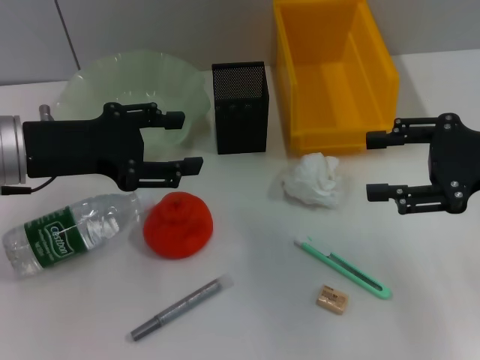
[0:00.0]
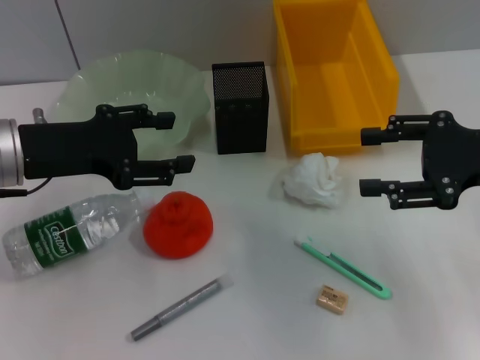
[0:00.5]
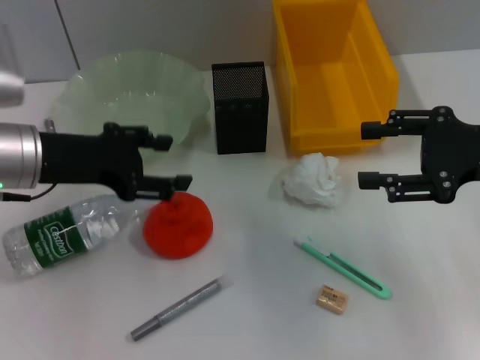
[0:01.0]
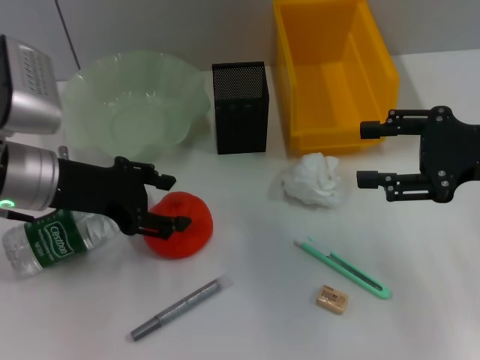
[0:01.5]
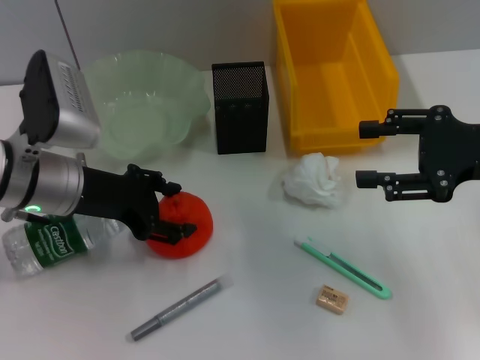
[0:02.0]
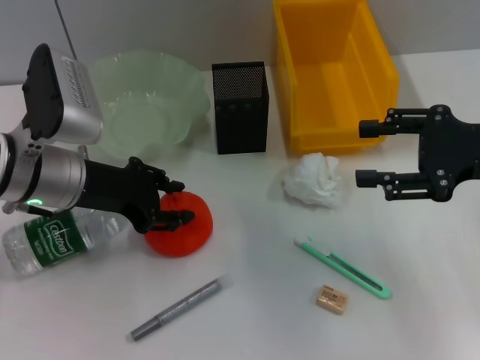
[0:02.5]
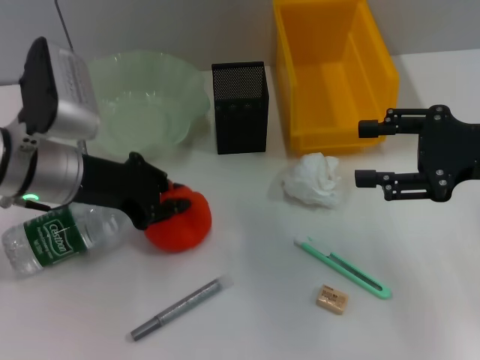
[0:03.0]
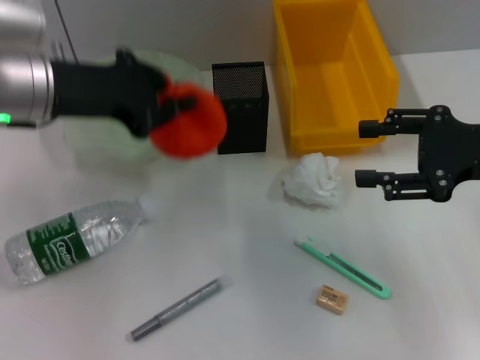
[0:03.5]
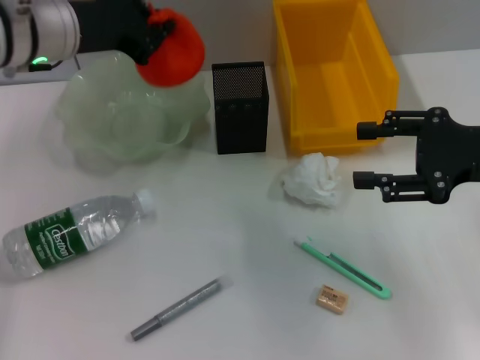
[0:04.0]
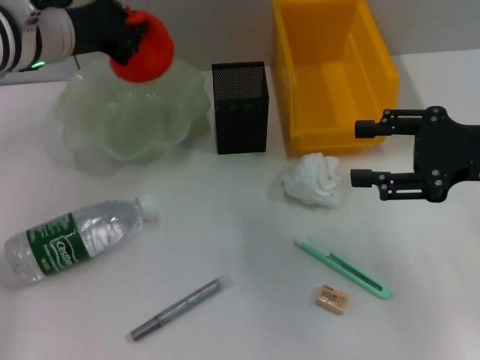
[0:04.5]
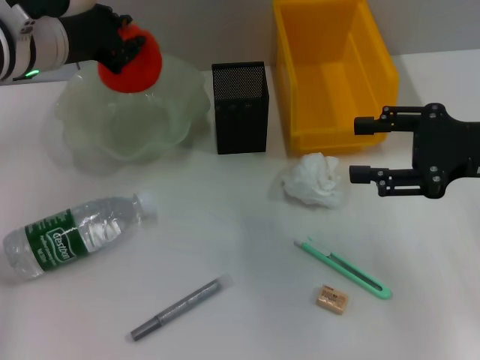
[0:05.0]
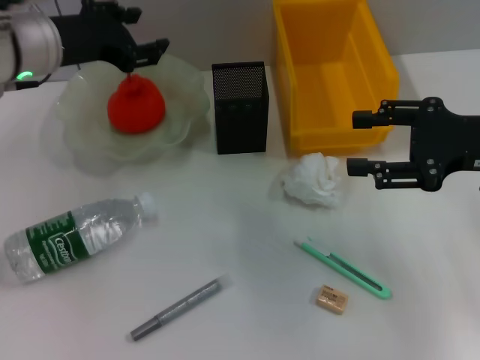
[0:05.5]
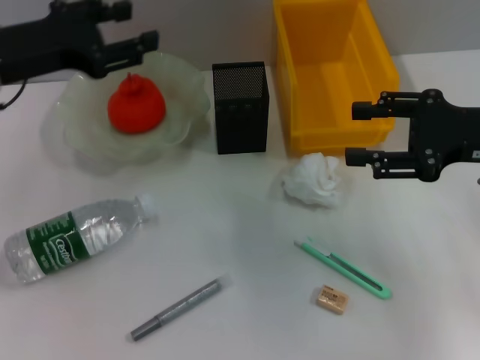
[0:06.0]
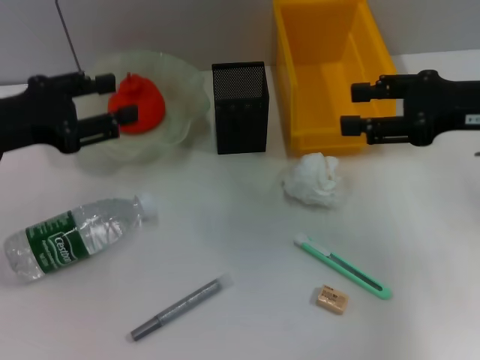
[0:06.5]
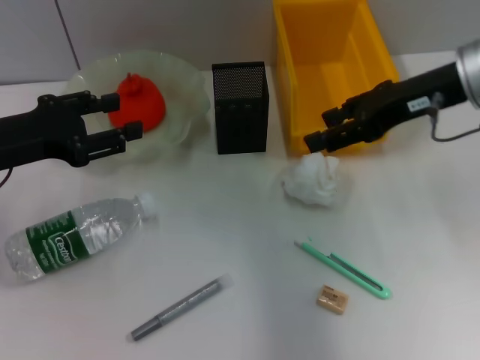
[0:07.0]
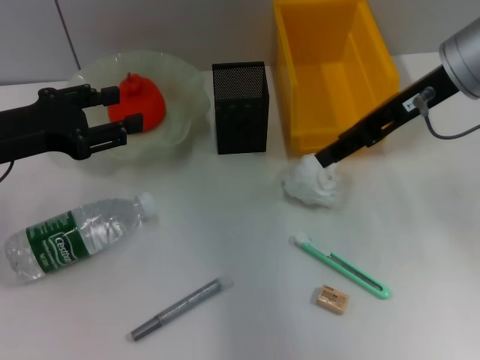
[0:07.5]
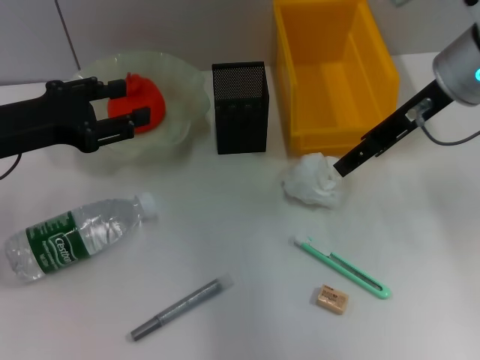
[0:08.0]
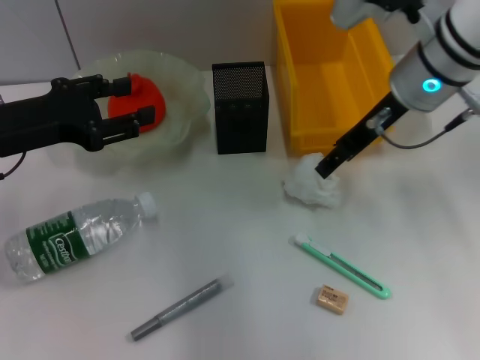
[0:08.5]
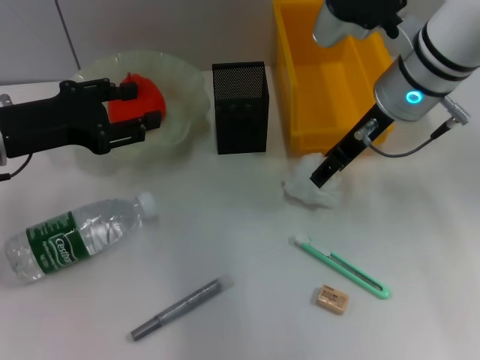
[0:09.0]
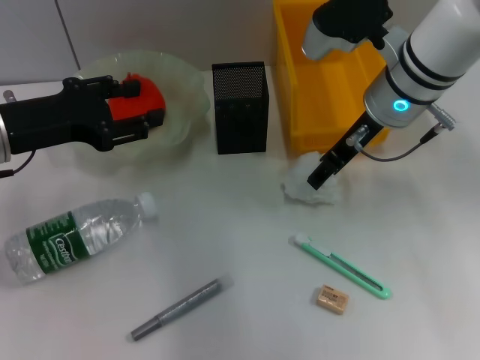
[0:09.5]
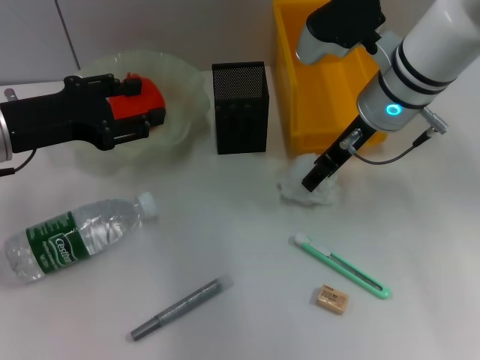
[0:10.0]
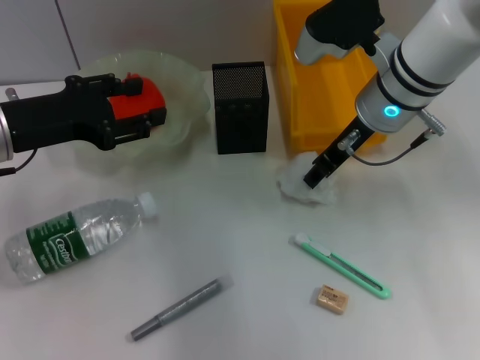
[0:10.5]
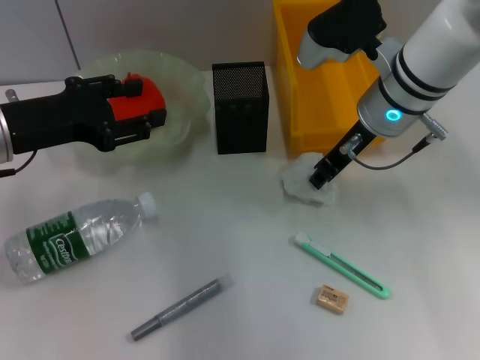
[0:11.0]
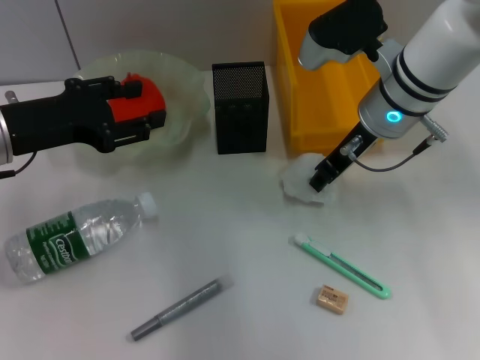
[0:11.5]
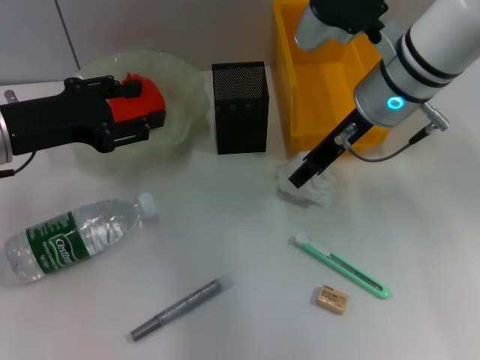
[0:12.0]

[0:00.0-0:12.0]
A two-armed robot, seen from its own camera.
Step, 0:00.0 to 0:02.5: Grab the orange with the left hand.
Step, 0:03.0 to 0:05.0: Place the orange into the fruit bowl with the left hand.
0:00.0 to 0:02.0: The left gripper shifts by roughly 5 cm.
0:02.0 to 0:04.0: The left gripper goes some 10 cm upward and forward, and closes up.
0:04.0 to 0:06.0: The left gripper heads to the left, covering roughly 5 cm, and opens its fingers.
0:06.0 to 0:08.0: The right gripper is displaced to the left, forward and upward by roughly 15 cm. Meanwhile the left gripper shifts by some 5 cm.
0:08.0 to 0:10.0: The right gripper moves downward and to the left, approximately 10 cm.
0:10.0 to 0:12.0: The right gripper closes, then opens again.

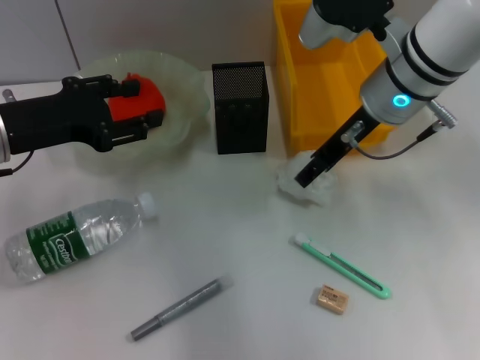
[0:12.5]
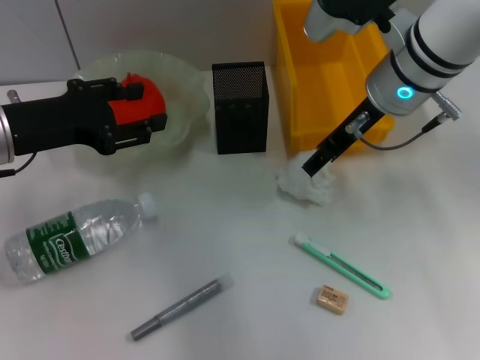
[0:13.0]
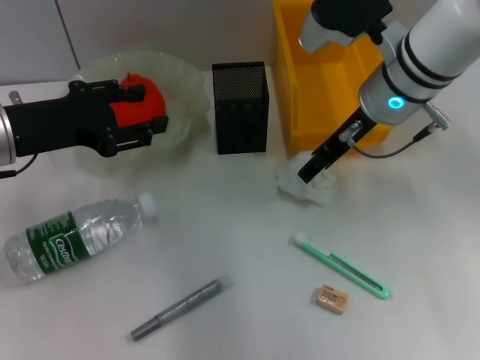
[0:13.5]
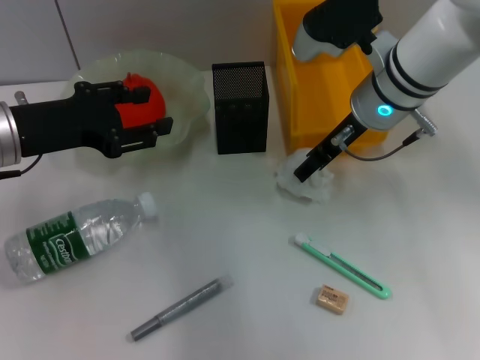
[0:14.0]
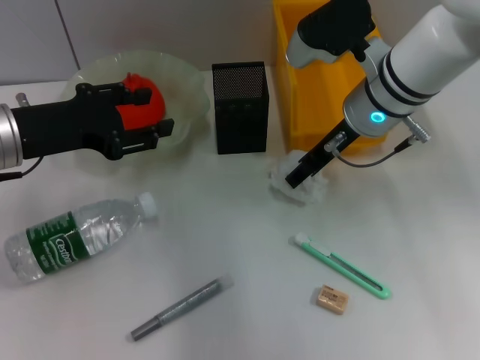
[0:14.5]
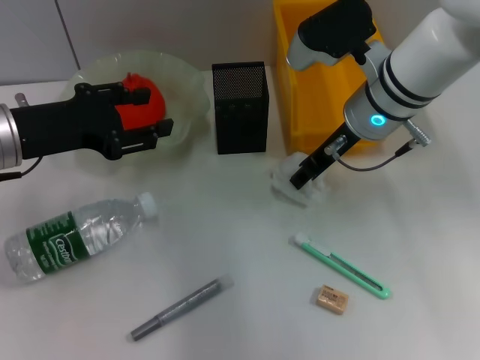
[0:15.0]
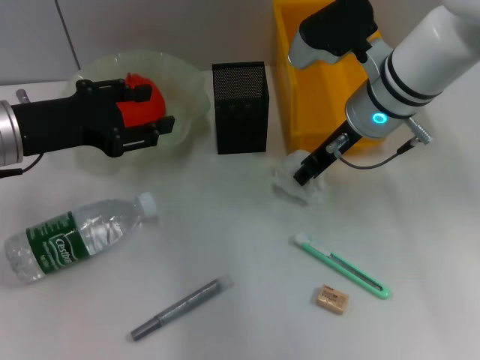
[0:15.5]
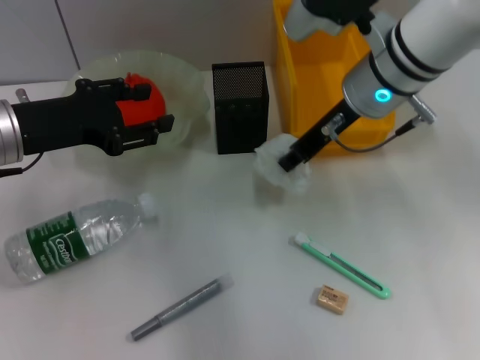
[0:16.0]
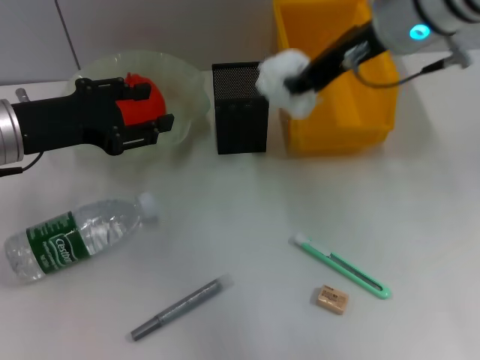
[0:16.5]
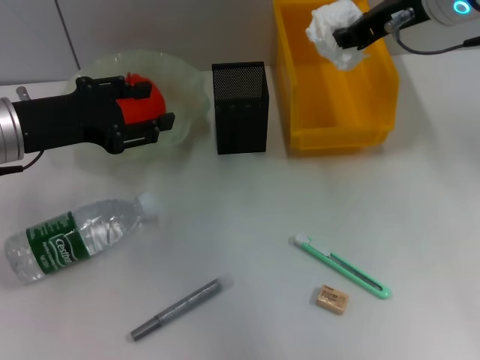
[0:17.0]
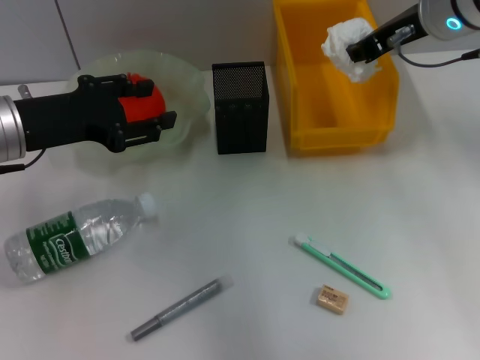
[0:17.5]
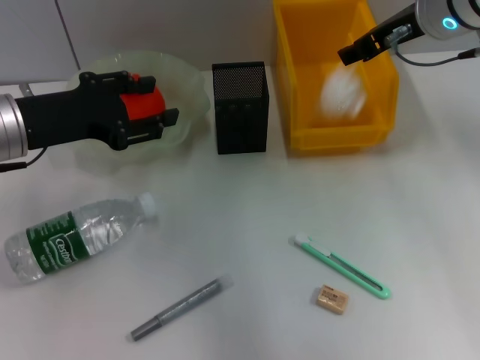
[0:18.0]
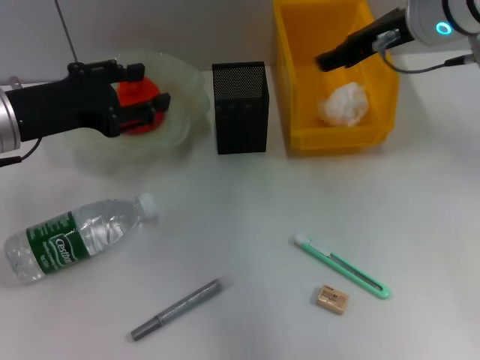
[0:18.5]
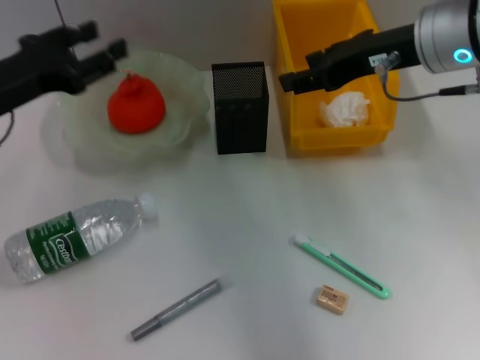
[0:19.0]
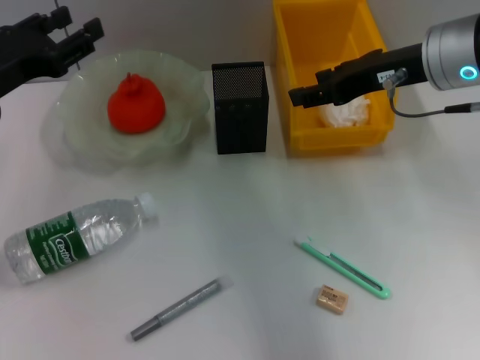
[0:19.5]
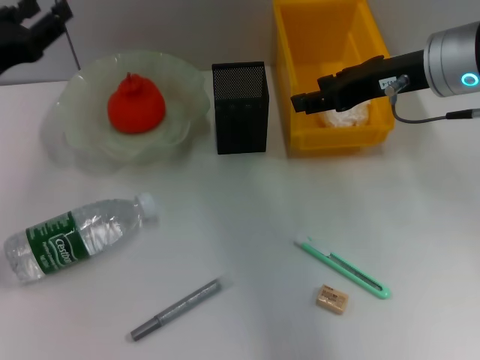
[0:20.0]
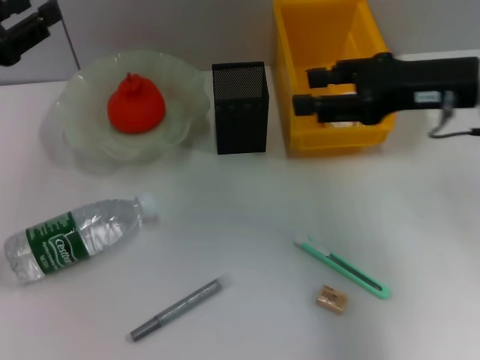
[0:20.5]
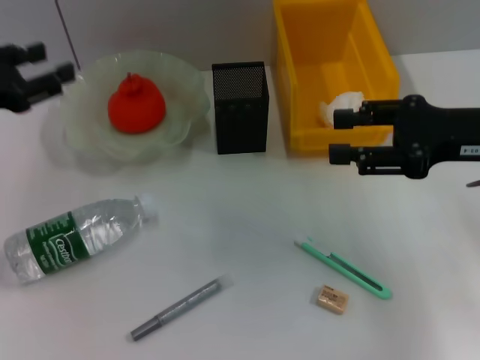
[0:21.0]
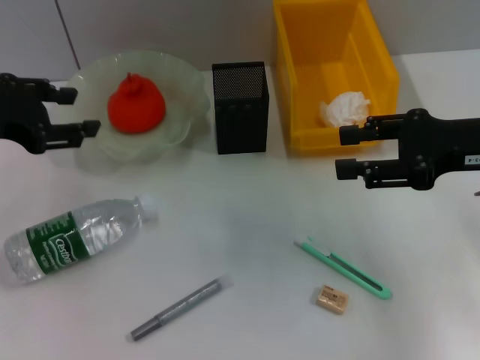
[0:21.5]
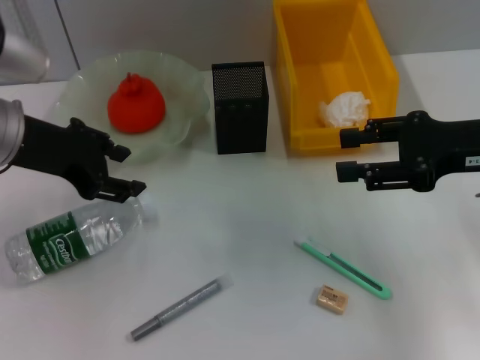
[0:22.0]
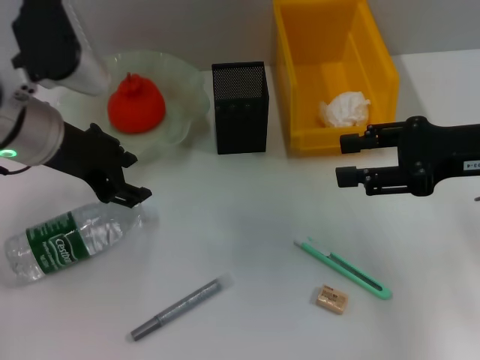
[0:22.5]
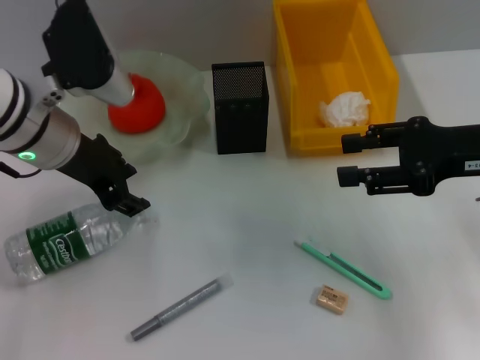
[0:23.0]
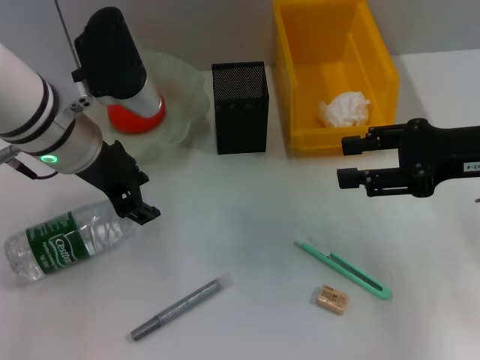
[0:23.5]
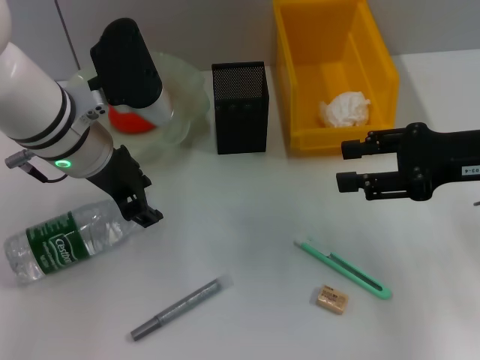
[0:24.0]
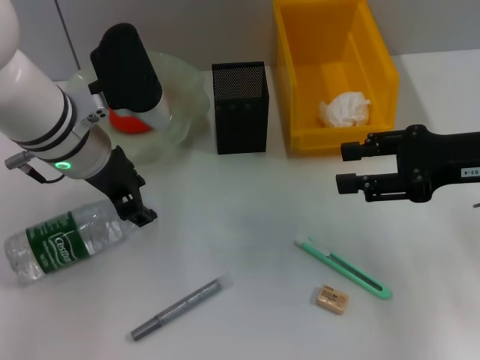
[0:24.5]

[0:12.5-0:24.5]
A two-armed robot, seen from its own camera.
Step, 0:12.5 to 0:15.0: Grab the paper ball with the right hand.
Step, 0:16.0 to 0:18.5: Place the paper ball into the trash can with the right hand.
0:12.5 to 0:14.5: There are only small adjustments of the grippers.
0:14.5 to 0:16.5: The right gripper heads upward, covering roughly 10 cm, and closes up.
0:16.5 to 0:18.5: The right gripper opens up.
0:18.5 to 0:20.5: The left gripper shifts roughly 5 cm to the left. Meanwhile the right gripper goes approximately 10 cm backward and to the right.
0:20.5 to 0:22.5: The left gripper travels to the right by approximately 15 cm. Meanwhile the right gripper ends up roughly 5 cm from where it was.
0:22.5 to 0:24.5: The left gripper shifts by some 5 cm.

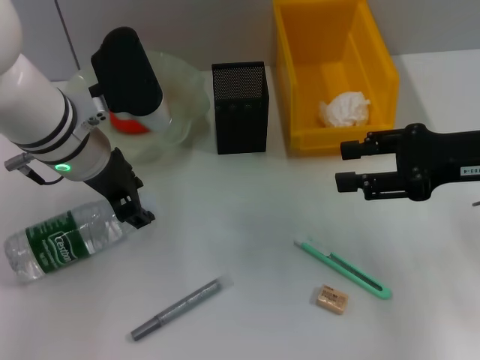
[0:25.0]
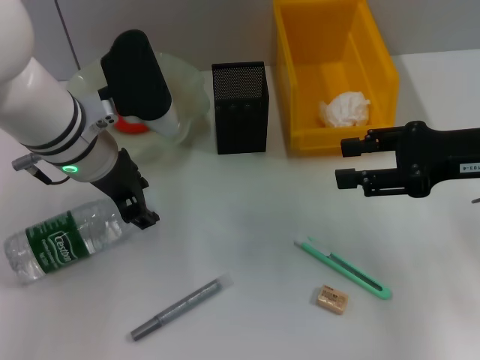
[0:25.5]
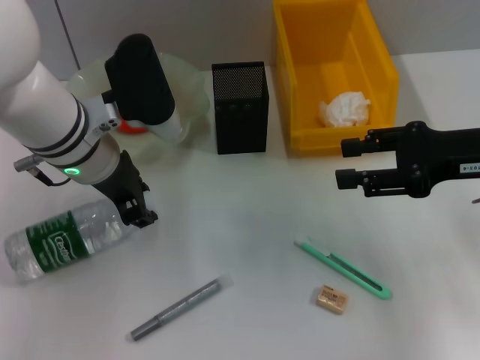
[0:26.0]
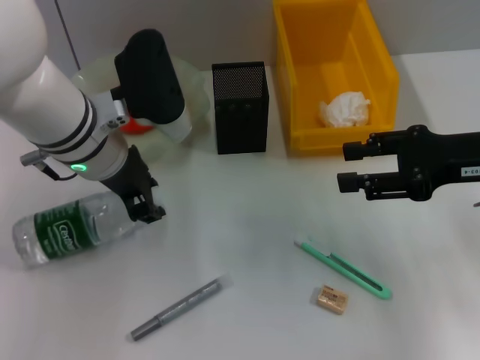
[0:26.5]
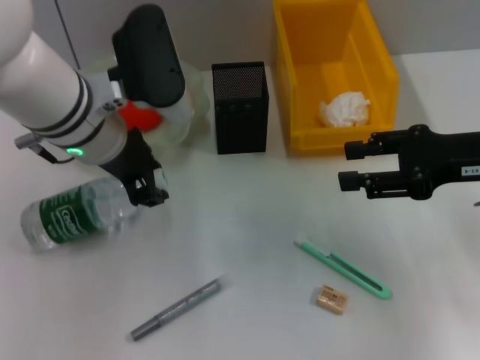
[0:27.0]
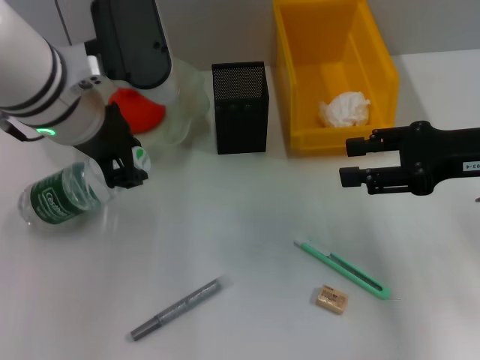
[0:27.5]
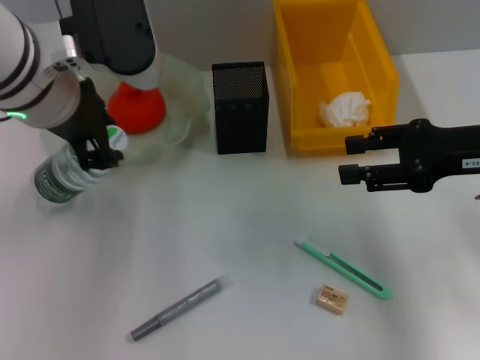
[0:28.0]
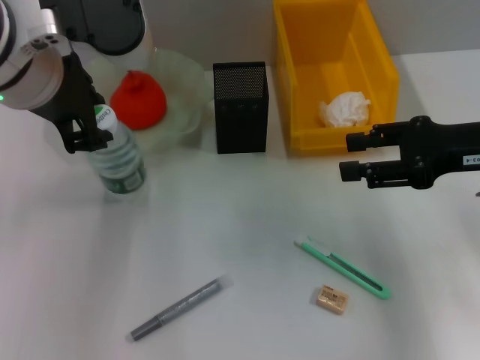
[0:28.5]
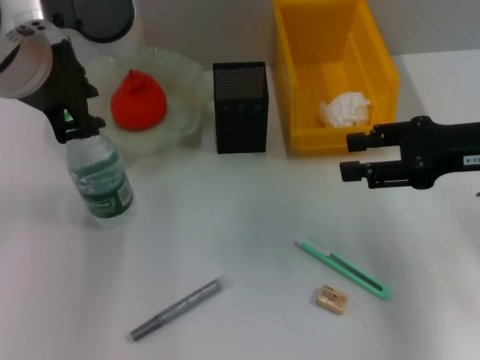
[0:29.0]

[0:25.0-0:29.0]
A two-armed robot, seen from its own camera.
0:25.0 to 0:27.0: There are only small adjustments of the grippers.
0:27.0 to 0:29.0: The left gripper travels upward by about 10 cm.
